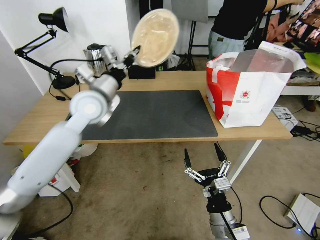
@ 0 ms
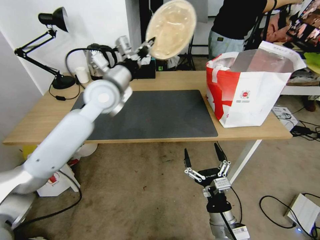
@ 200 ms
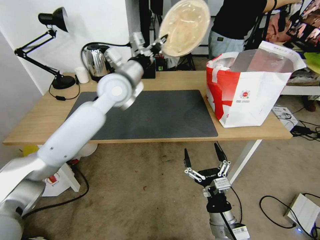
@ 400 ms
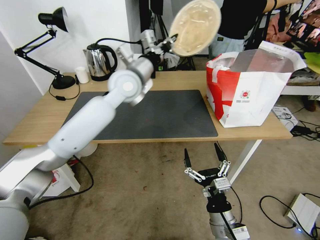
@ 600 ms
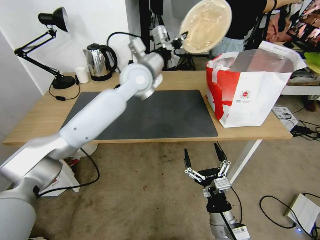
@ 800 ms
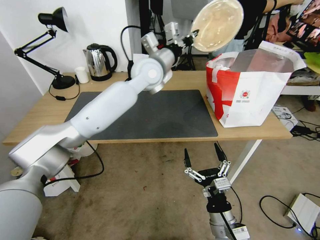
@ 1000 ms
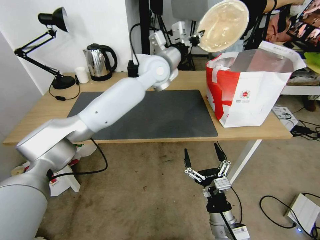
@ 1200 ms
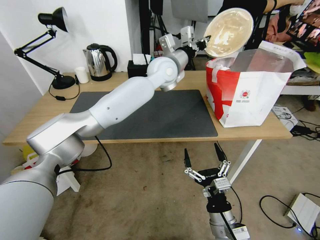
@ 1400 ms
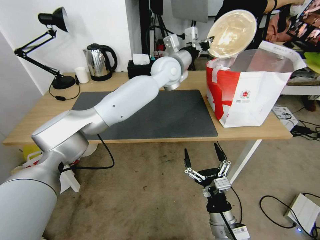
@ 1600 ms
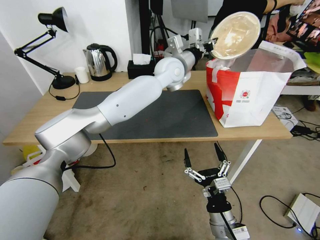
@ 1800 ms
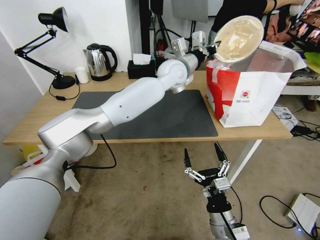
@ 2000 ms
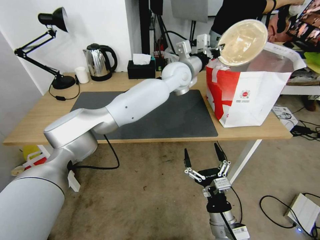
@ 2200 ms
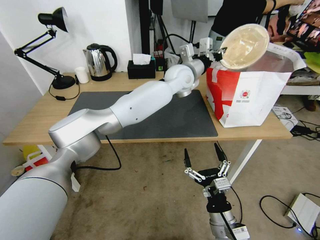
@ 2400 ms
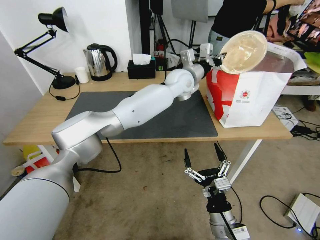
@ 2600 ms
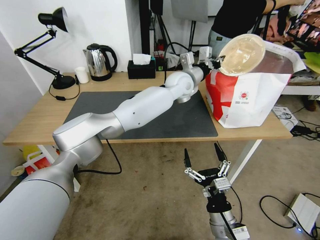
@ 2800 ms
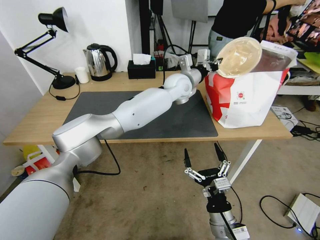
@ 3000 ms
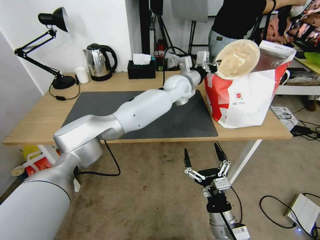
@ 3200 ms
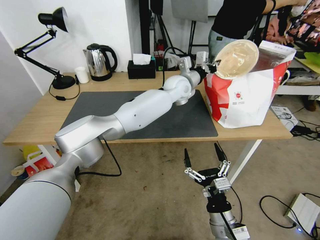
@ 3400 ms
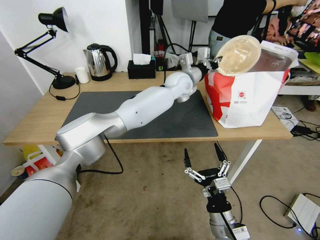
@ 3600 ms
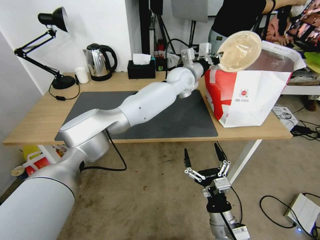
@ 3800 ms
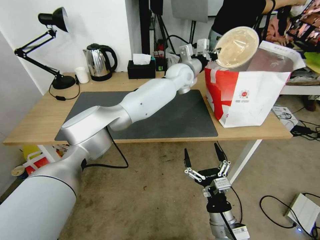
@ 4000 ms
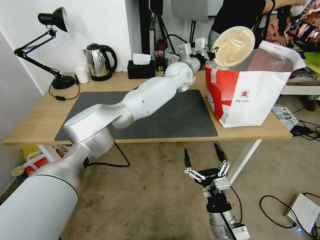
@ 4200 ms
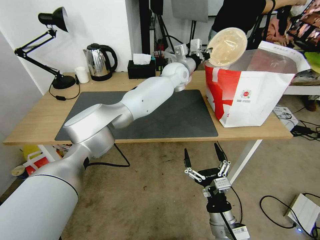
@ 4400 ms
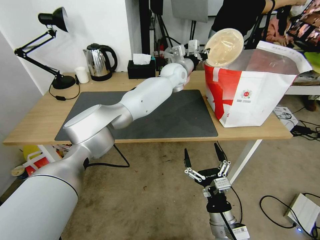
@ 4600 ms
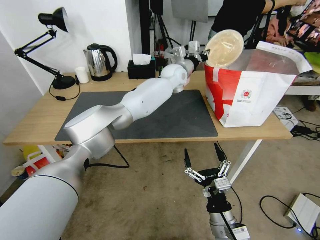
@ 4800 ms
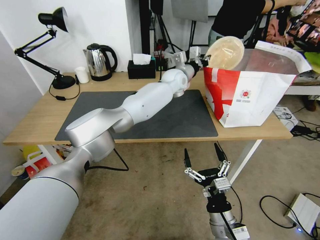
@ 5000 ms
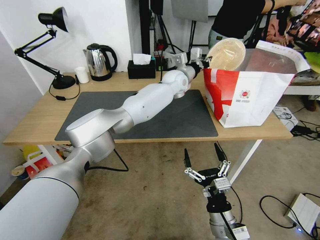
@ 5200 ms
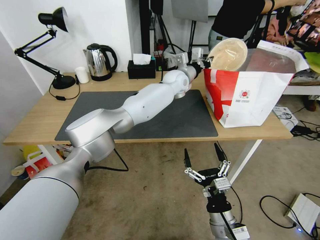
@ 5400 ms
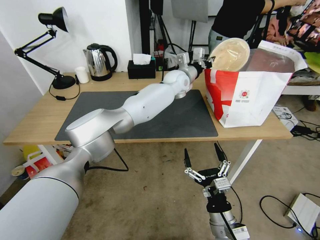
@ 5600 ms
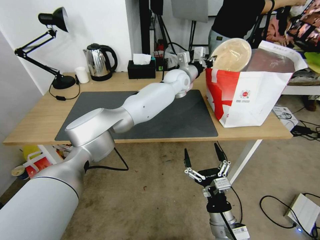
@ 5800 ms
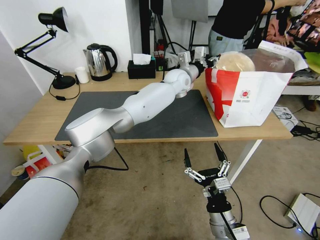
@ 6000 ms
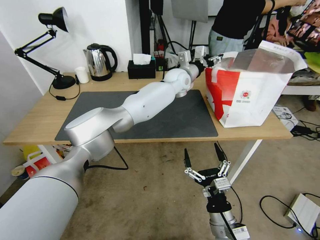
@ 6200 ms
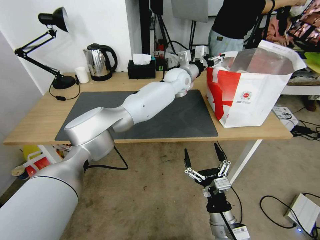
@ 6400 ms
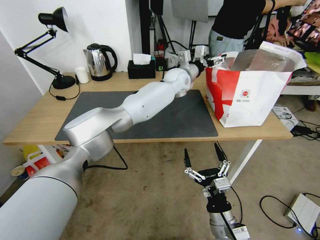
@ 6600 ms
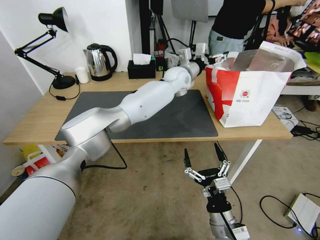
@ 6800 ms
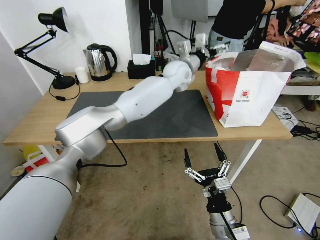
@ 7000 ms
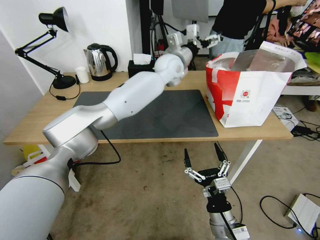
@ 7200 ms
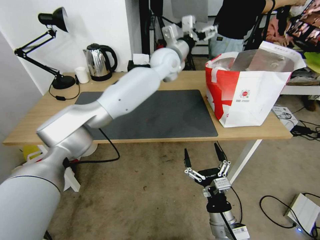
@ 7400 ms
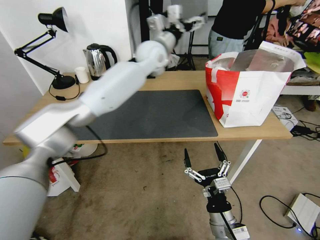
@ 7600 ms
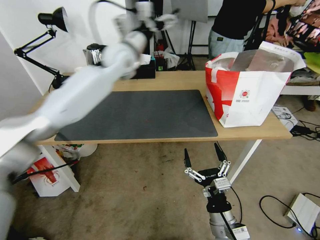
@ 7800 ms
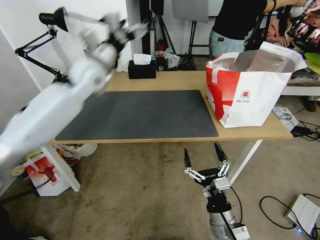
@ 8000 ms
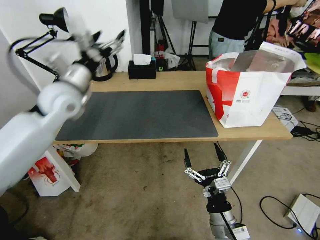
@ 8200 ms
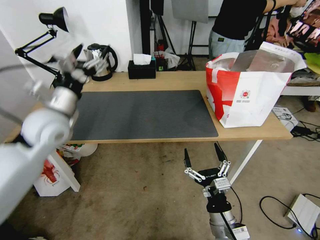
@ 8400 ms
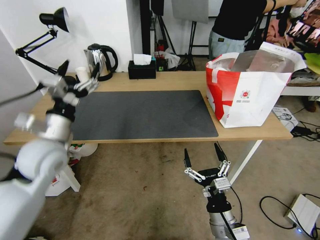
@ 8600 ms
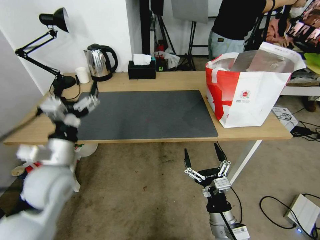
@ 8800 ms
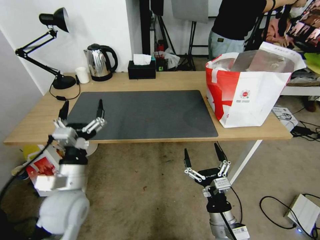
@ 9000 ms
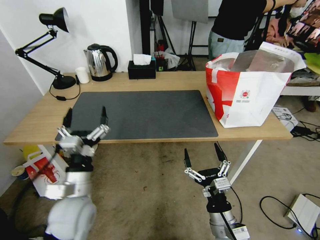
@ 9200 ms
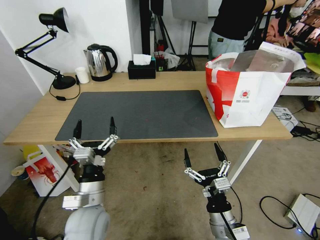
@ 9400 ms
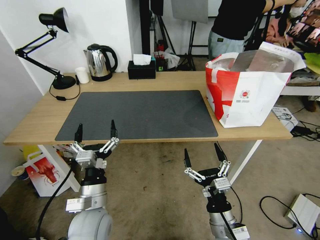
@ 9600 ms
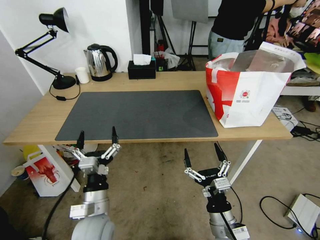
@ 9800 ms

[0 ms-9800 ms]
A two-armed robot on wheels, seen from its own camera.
Task of the whole recording: Pick up the trash from the table and place it into the takeout bag.
0 ms to 1400 ms: The left gripper travels to the right and forward by about 25 cm.
1400 ms to 2800 ms: The left gripper moves downward and to the right, about 10 cm.
2800 ms to 4200 ms: The grippers make only small movements.
4200 ms to 5600 ms: The grippers move only a little.
5600 ms to 7000 ms: The left gripper opens up.
7000 ms to 8400 ms: The left gripper is displaced to the left and backward by about 40 cm.
8400 ms to 9800 ms: The left gripper moves downward, backward and to the right, some 30 cm.

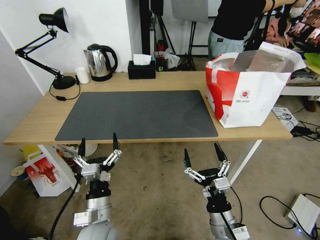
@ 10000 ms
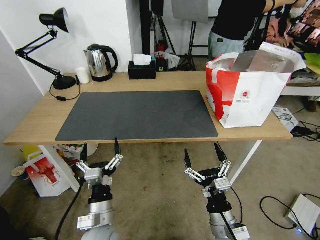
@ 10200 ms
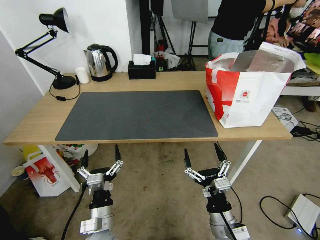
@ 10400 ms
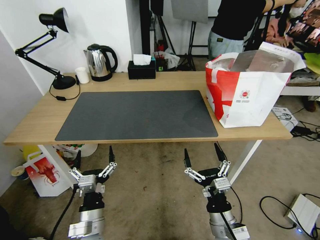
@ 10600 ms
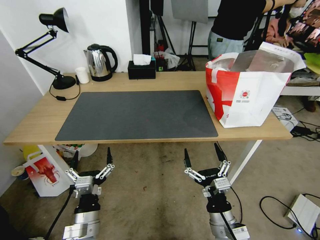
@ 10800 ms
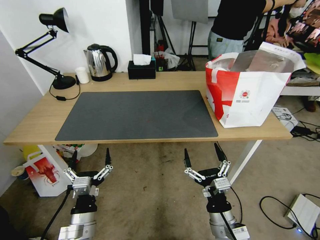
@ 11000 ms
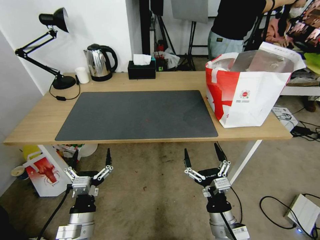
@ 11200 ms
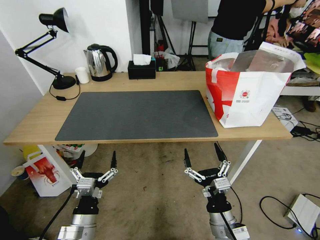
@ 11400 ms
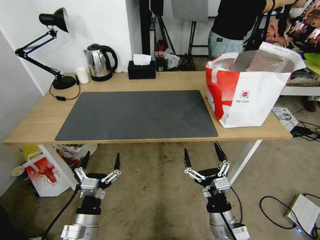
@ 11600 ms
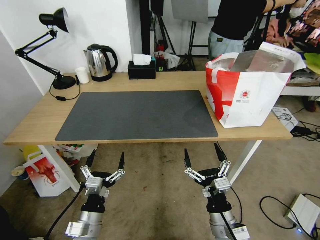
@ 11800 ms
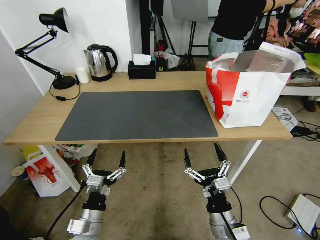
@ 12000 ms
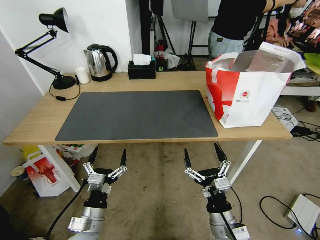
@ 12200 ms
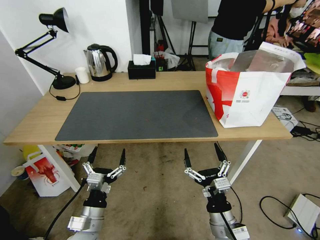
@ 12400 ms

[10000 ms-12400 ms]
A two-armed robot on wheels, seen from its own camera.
Task of the whole recording: Pick up the trash from the table and place it into the takeout bag.
10000 ms to 11200 ms: The left gripper heads to the left, covering roughly 5 cm.
11200 ms to 12400 ms: The grippers make only small movements.
